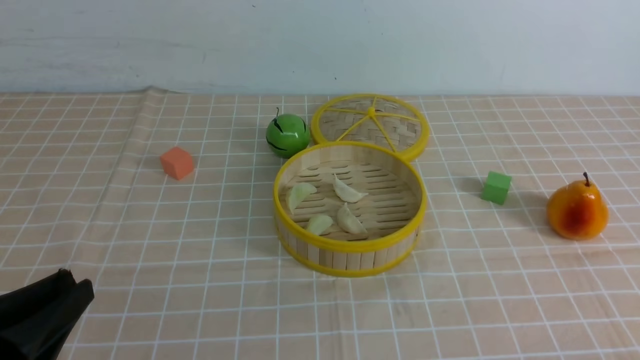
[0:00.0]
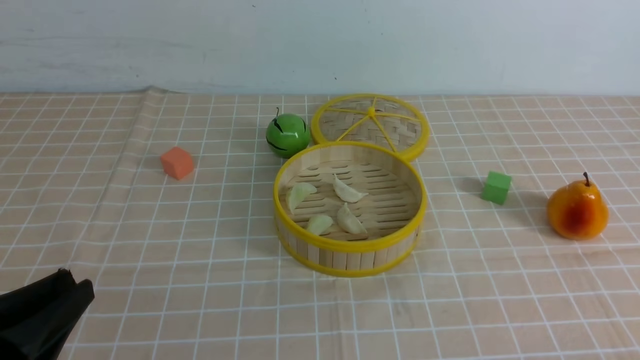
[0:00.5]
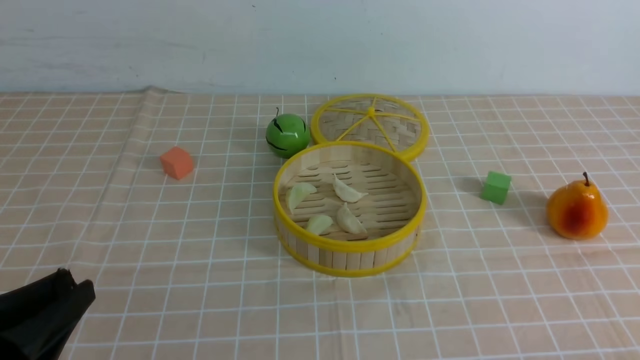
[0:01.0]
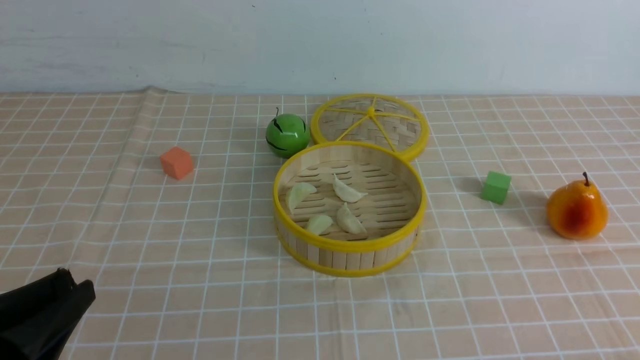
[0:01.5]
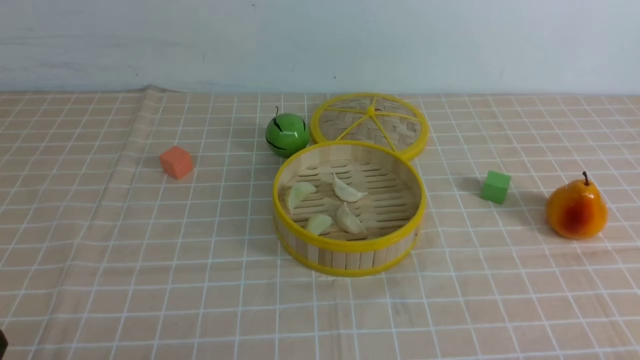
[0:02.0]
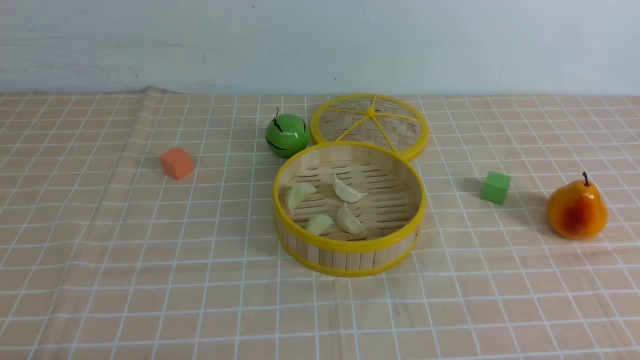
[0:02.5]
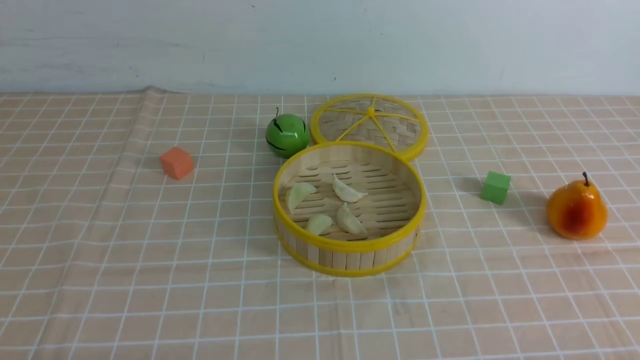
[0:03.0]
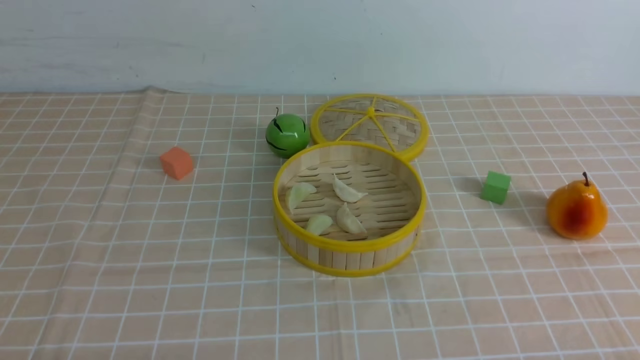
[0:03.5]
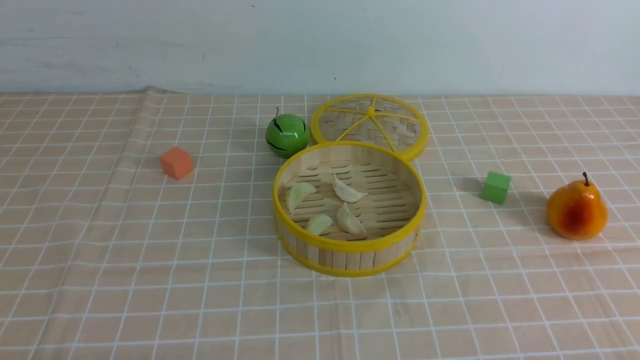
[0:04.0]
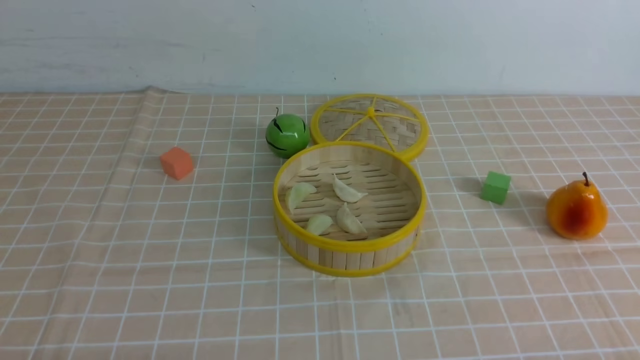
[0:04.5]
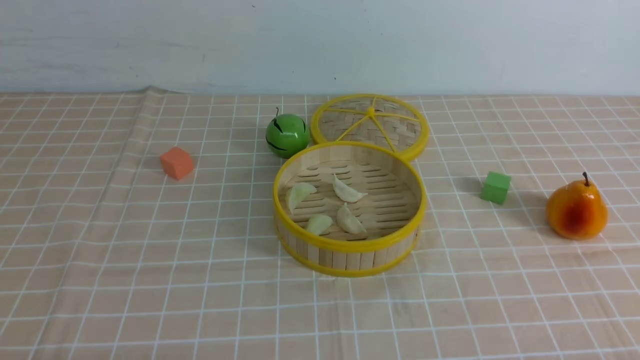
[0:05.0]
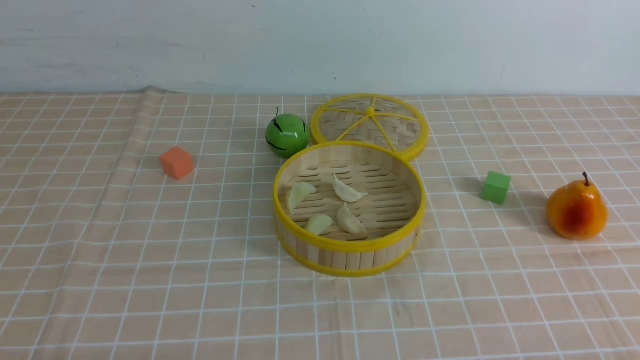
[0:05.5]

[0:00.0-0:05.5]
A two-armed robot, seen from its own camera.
Task of the whole recording: put the dumplings into the steamer on the table with the brown tablecloth.
0:00.0 to 0:02.0: The left gripper ends up some 5 cm from where it was.
0:03.5 to 0:05.5: Both grippers stay about where they are.

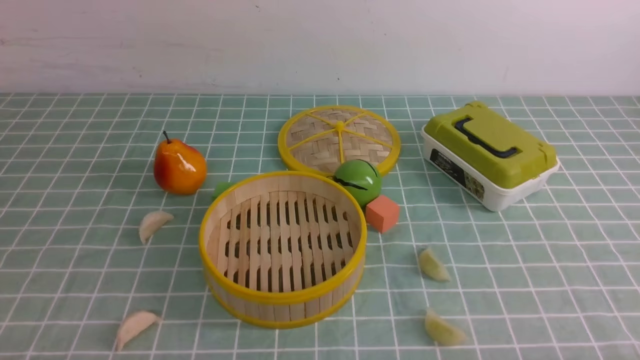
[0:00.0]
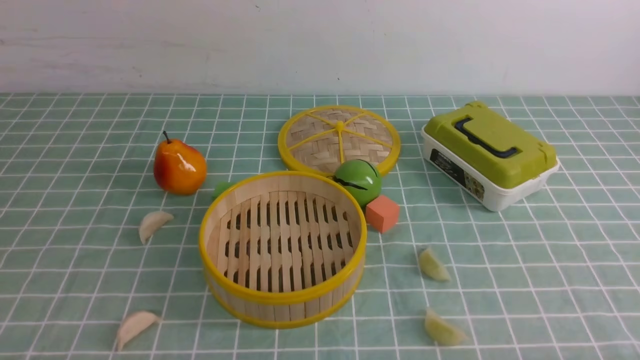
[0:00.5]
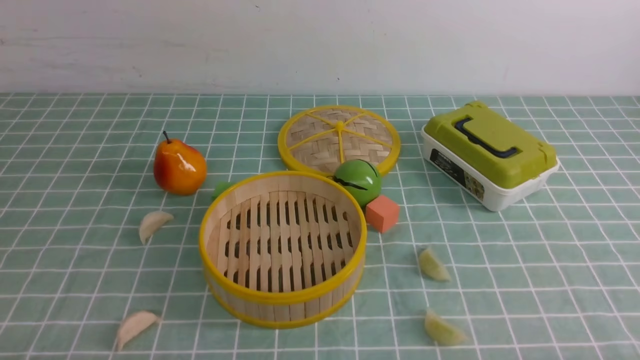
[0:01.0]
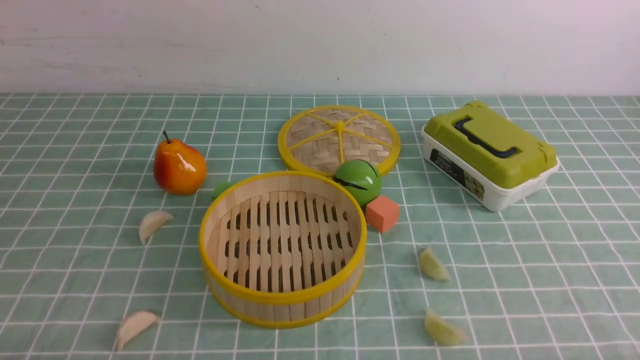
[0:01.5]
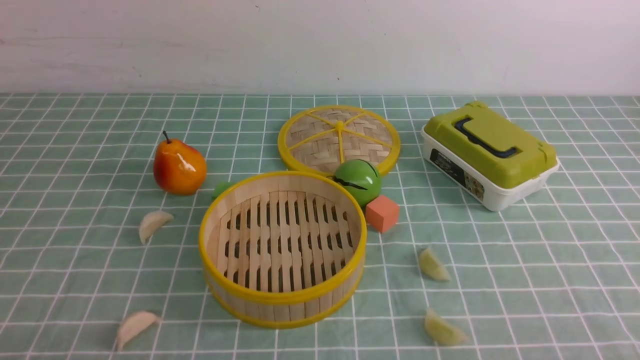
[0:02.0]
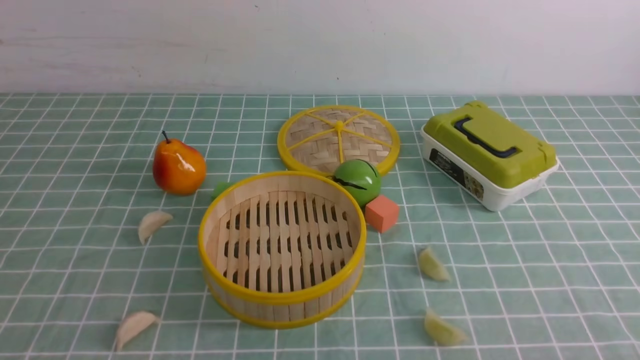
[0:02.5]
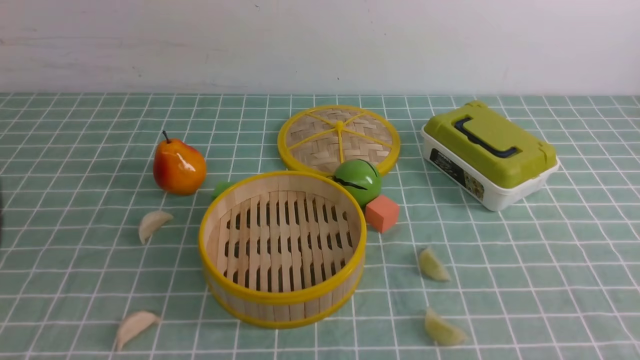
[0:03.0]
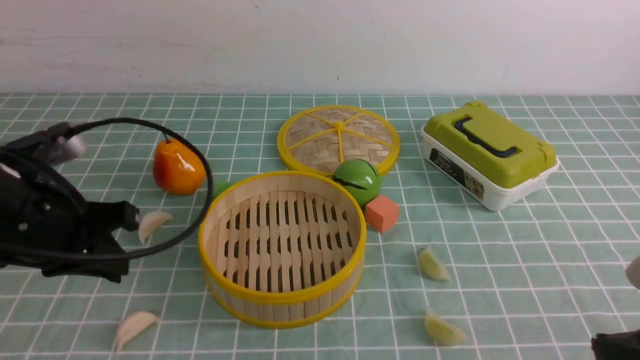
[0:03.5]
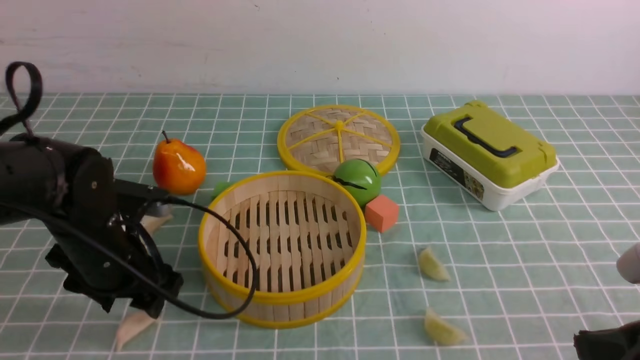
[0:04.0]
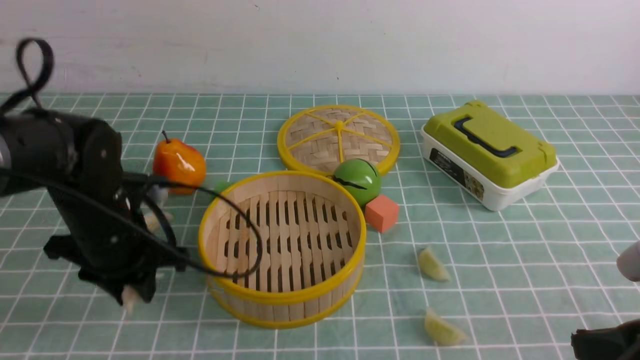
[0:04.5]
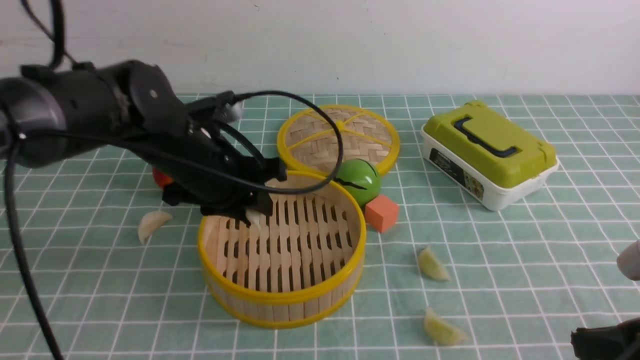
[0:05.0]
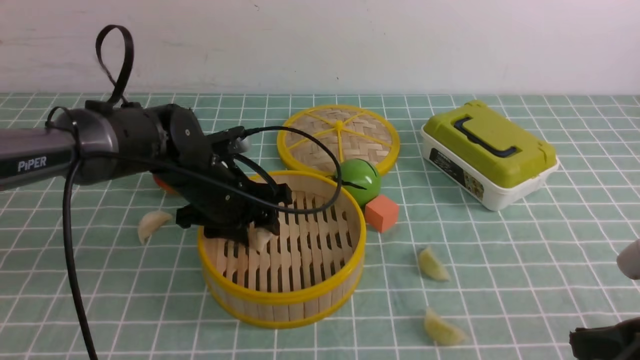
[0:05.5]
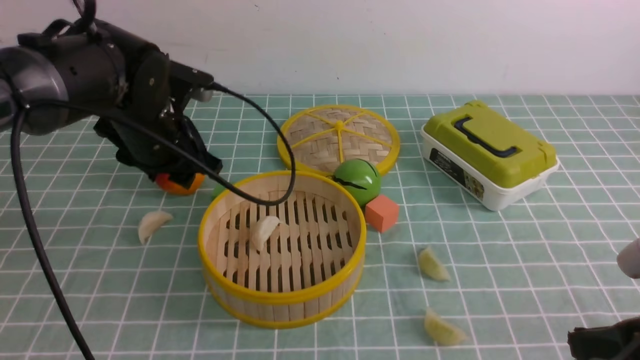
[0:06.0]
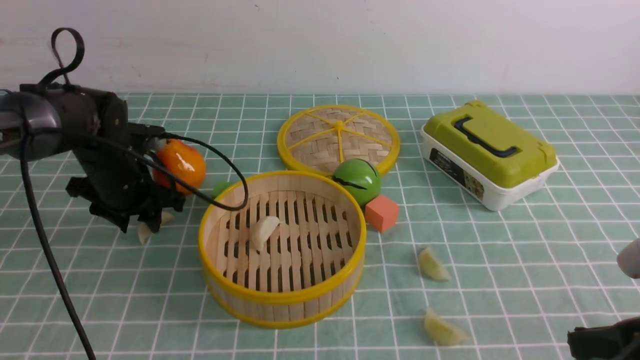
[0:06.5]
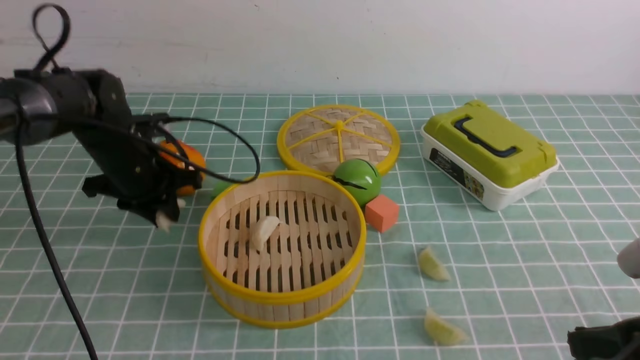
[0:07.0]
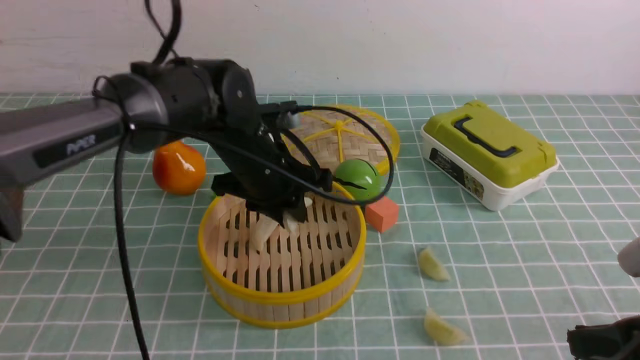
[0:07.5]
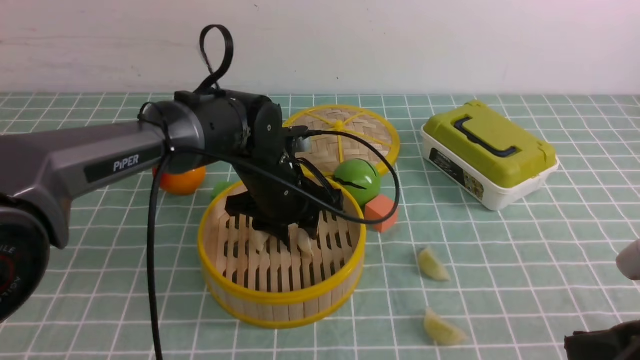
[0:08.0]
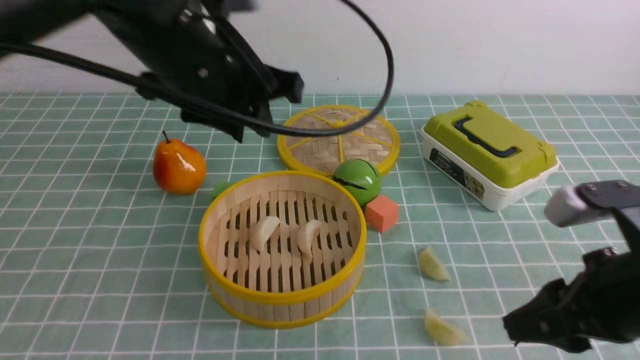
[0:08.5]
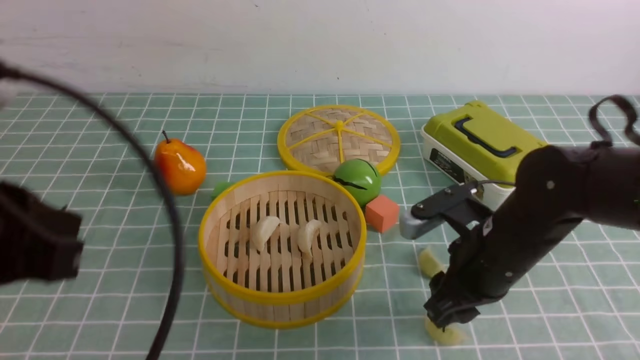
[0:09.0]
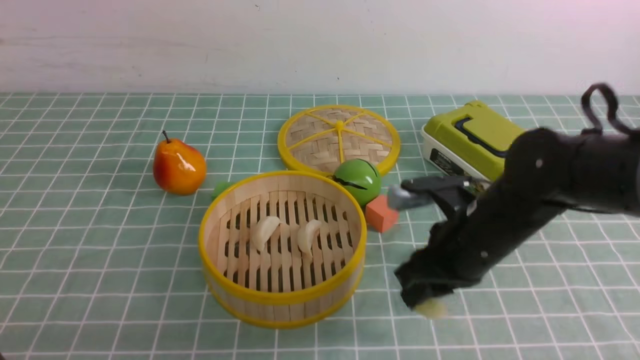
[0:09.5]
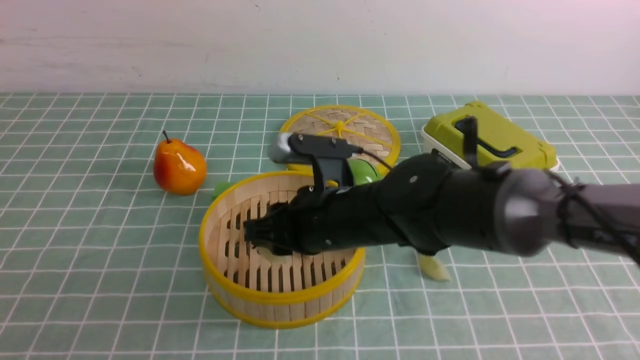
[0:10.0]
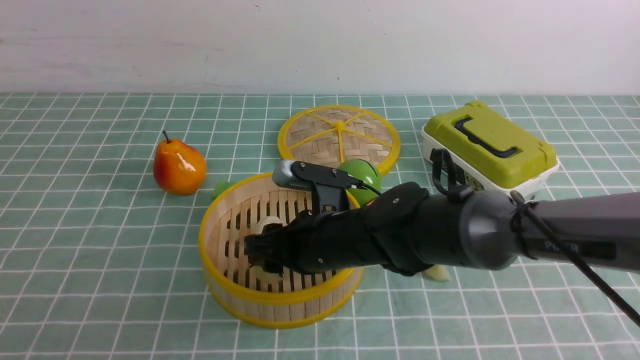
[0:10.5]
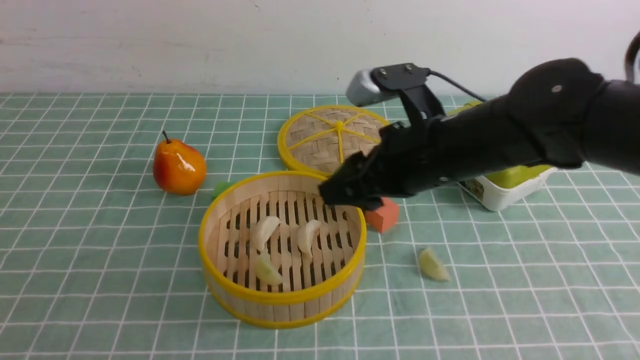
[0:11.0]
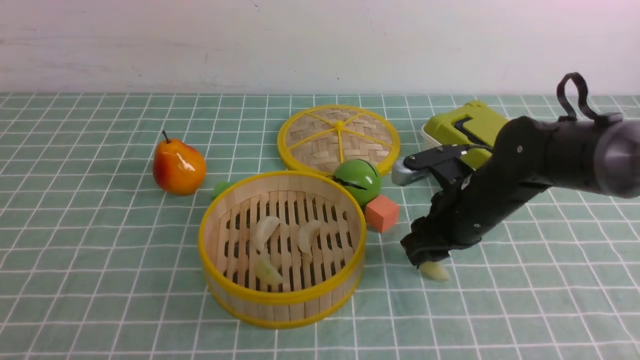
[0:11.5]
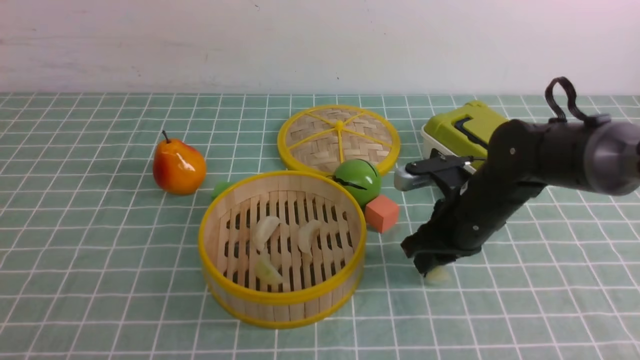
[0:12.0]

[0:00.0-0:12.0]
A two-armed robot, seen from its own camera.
Task of the whole recording: put the dumplings into the steamer on the table with the blue tablecloth.
Step, 0:00.0 to 0:04.0: use the left arm to grab a dumpling.
Step, 0:04.5 to 0:05.5: use the left arm to put the dumpling into the steamer.
Step, 0:06.0 to 0:06.5: use the left arm to grab a dumpling.
Step, 0:07.0 to 0:08.0: use the left arm to put the dumpling into the steamer.
Step, 0:08.5 to 0:09.0: use the right arm to grab a dumpling.
Step, 0:09.5 to 0:10.5: use the right arm to put the dumpling into the steamer.
Step, 0:11.0 to 0:11.5: use the right arm to grab a dumpling.
0:02.0 to 0:04.0: The left gripper travels forward by about 25 cm, and opens its fingers; the right gripper is displaced forward by some 10 cm, and closes its fingers.
0:04.0 to 0:06.0: The left gripper travels forward and upward by about 10 cm, and closes, then reopens.
0:06.0 to 0:08.0: The left gripper is displaced to the right by approximately 10 cm.
0:08.0 to 0:10.0: The right gripper travels to the left and forward by approximately 30 cm. Meanwhile the left gripper is displaced backward and to the left by about 40 cm, and closes its fingers.
0:10.0 to 0:12.0: The right gripper is displaced to the right by about 15 cm, and opens, then closes once more.

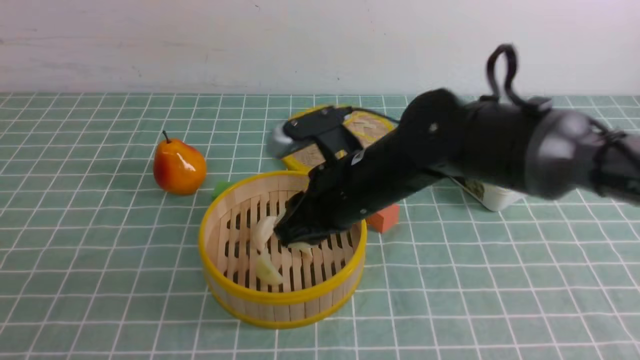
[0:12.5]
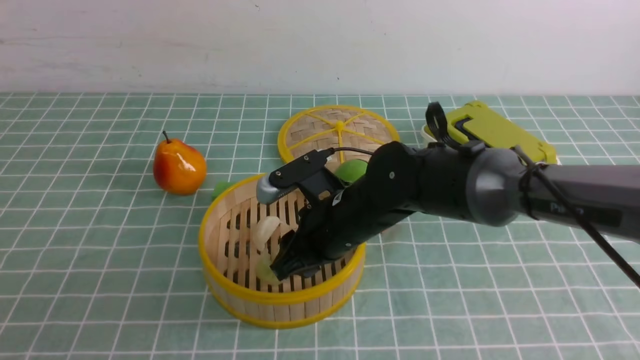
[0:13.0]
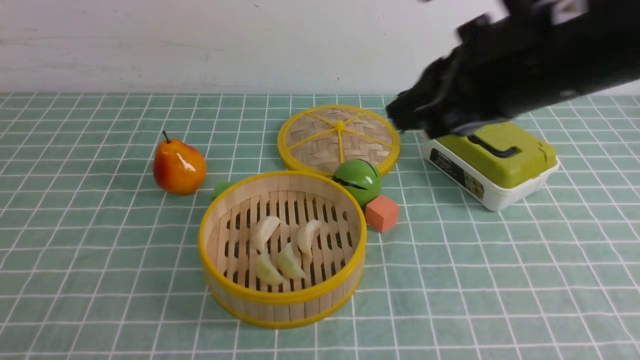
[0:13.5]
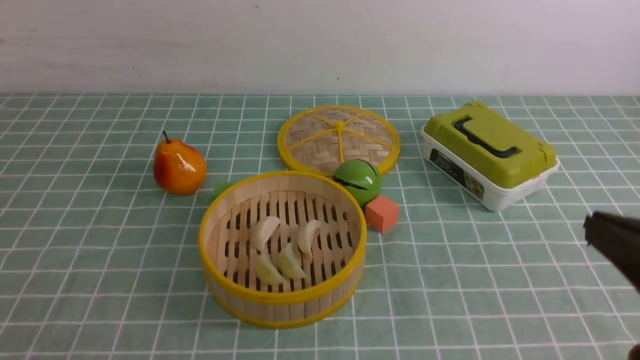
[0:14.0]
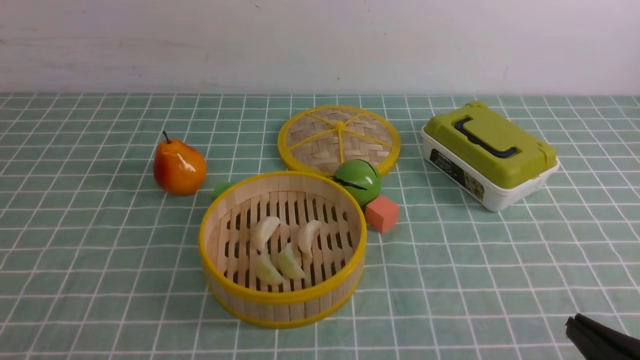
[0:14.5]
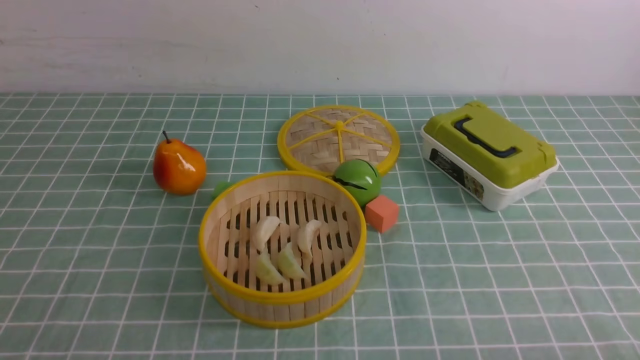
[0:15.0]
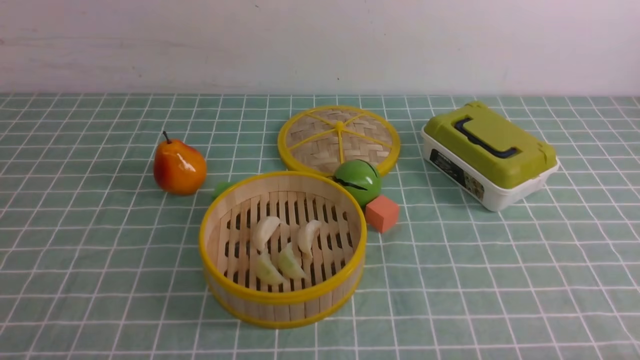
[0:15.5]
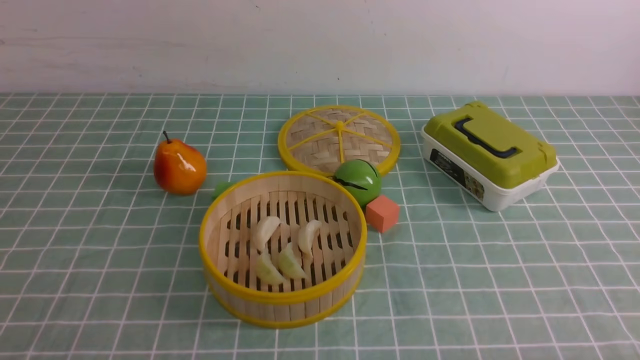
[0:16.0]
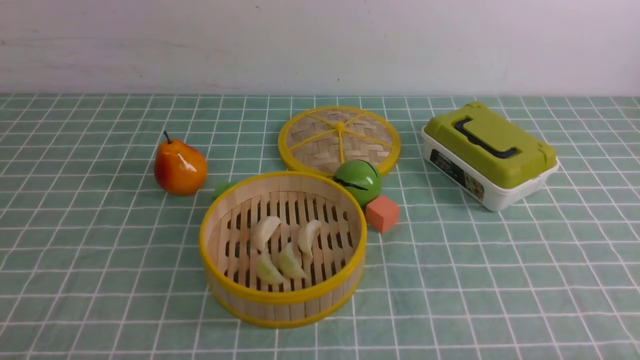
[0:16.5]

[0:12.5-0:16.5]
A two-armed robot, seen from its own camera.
Task of the whole recording: put the dumplings into the steamer on the table with the blue tablecloth.
0:12.5 to 0:14.5: The right gripper goes some 35 cm backward and to the right, and closes its fingers.
0:14.5 to 0:16.5: The right gripper shifts by some 5 cm.
